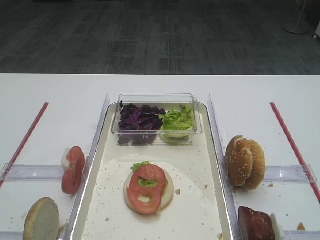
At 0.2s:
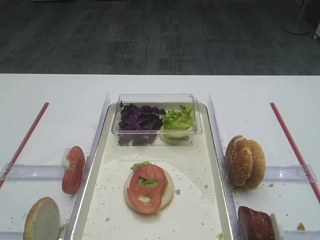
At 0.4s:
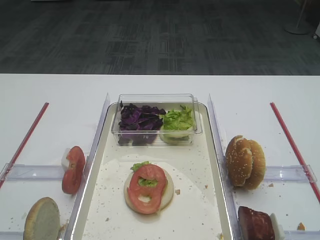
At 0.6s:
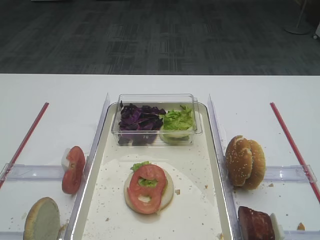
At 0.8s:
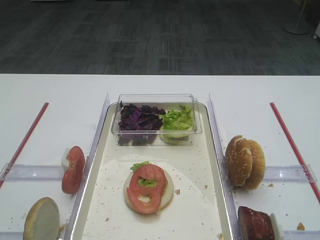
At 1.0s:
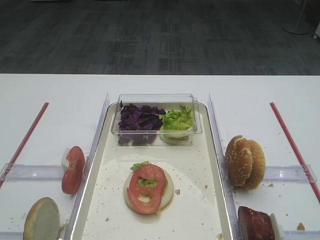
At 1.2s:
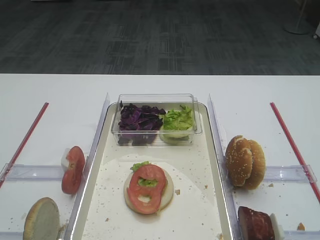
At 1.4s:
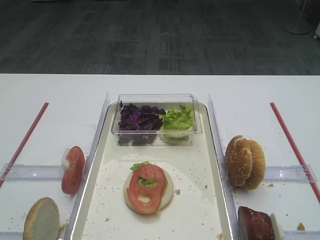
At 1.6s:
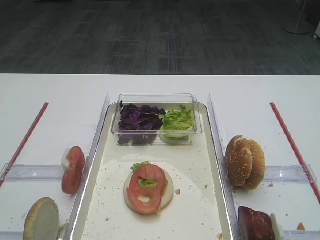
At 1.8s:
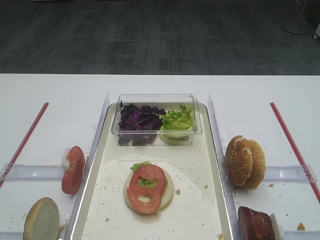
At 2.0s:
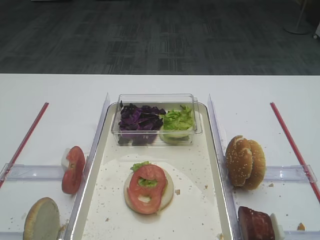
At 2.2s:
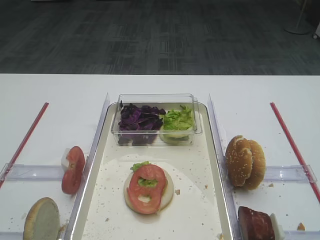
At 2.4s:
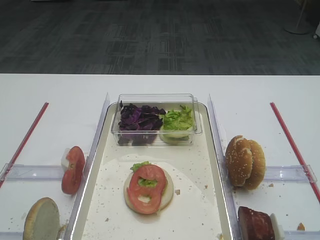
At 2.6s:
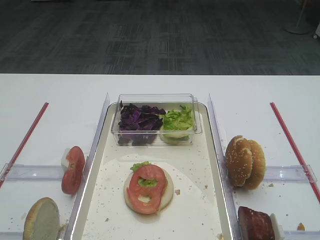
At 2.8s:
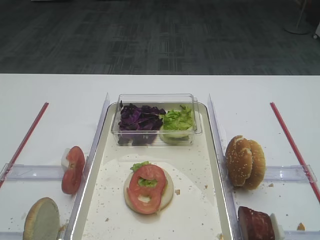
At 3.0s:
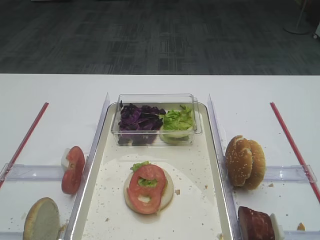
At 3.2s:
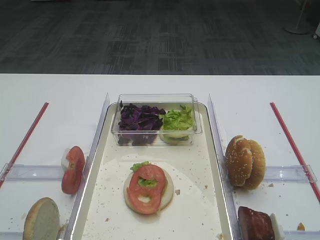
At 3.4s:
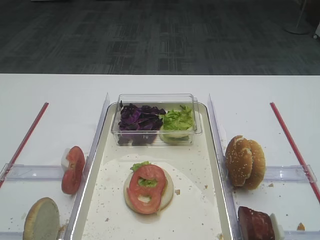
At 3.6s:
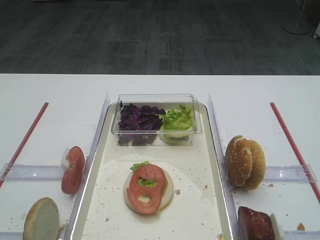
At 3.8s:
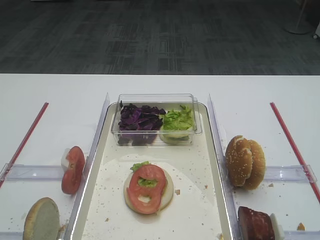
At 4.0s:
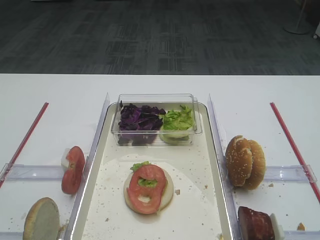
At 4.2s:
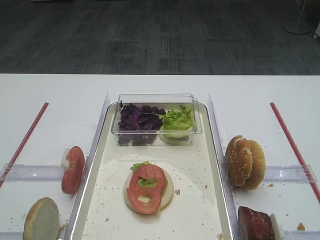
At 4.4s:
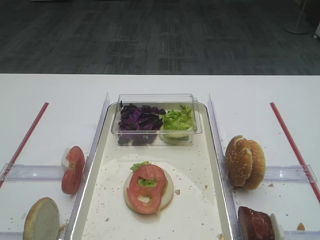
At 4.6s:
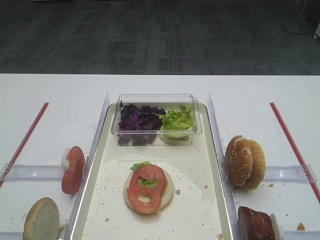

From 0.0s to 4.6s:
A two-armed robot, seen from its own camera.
From 1.6s to 4.6s: Both grippers stay put.

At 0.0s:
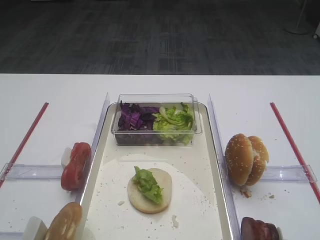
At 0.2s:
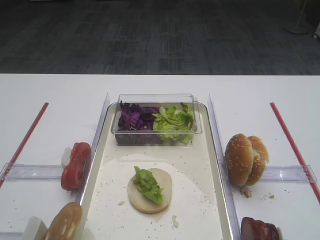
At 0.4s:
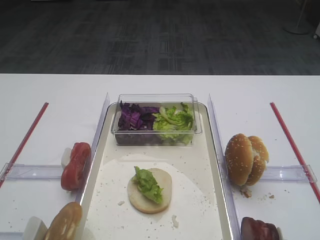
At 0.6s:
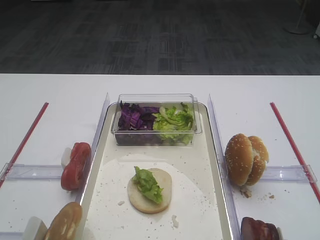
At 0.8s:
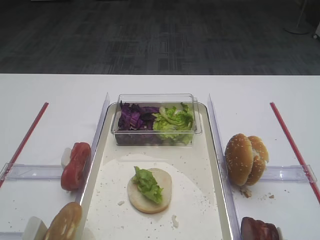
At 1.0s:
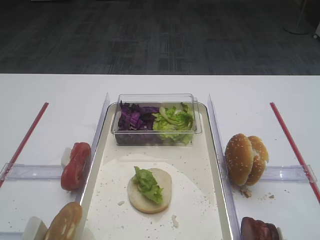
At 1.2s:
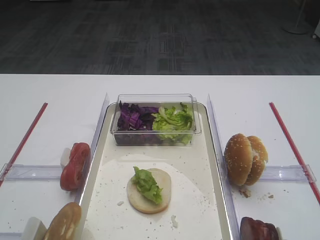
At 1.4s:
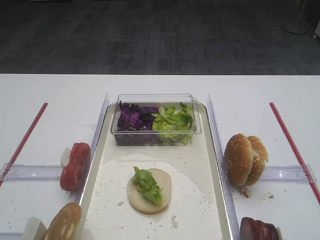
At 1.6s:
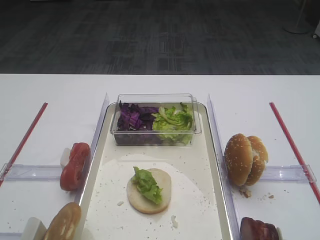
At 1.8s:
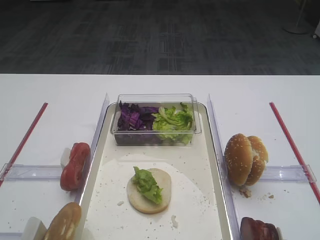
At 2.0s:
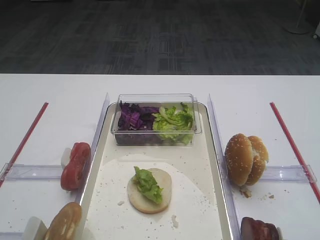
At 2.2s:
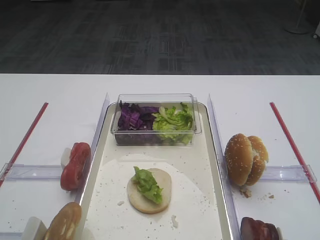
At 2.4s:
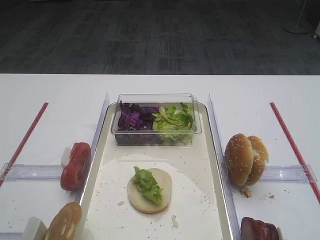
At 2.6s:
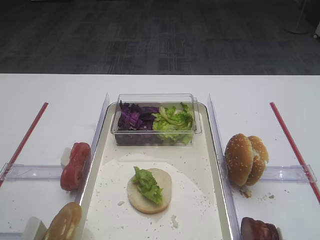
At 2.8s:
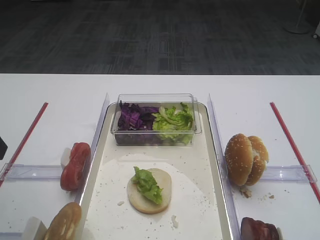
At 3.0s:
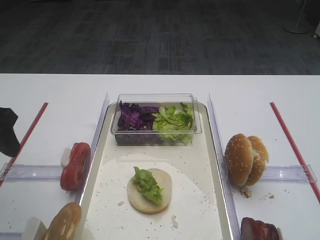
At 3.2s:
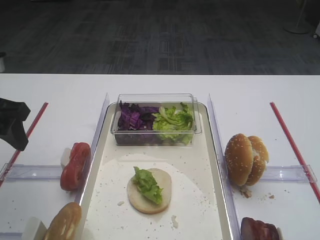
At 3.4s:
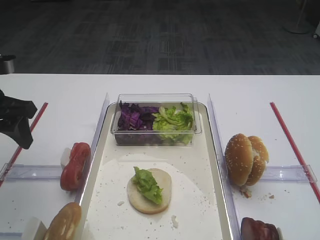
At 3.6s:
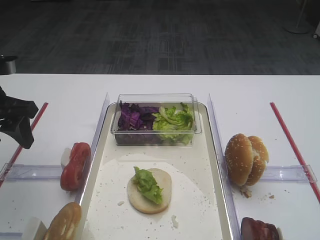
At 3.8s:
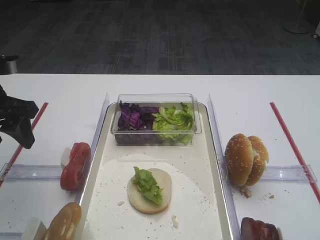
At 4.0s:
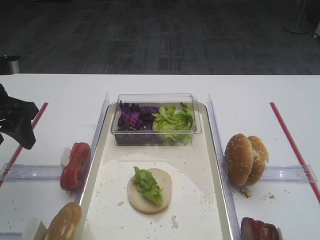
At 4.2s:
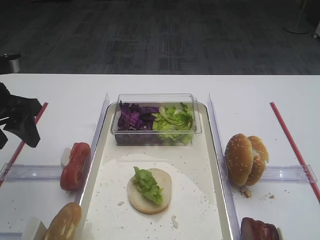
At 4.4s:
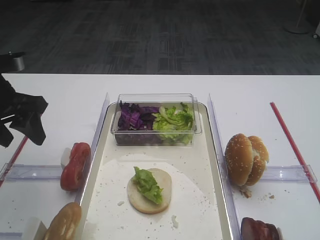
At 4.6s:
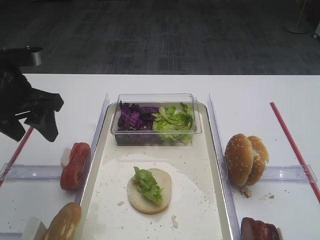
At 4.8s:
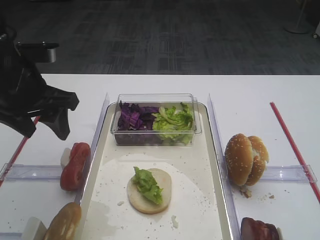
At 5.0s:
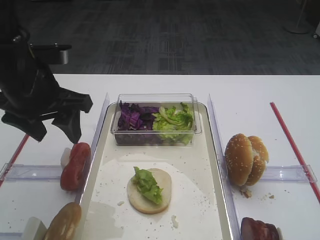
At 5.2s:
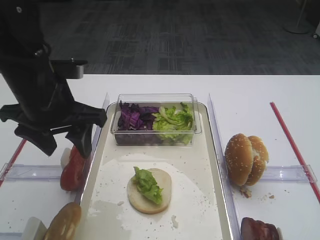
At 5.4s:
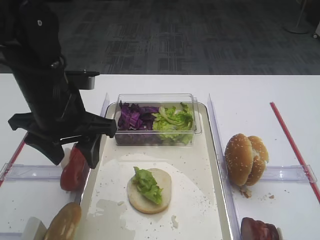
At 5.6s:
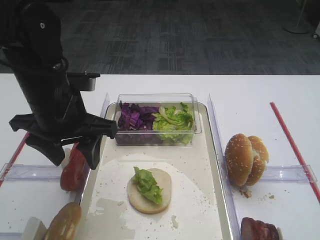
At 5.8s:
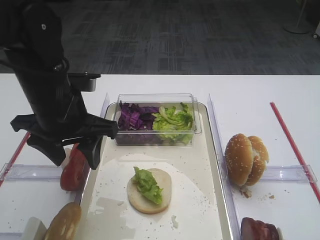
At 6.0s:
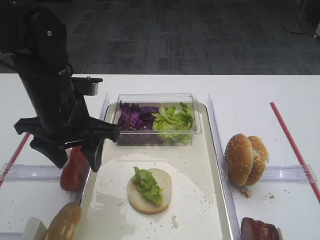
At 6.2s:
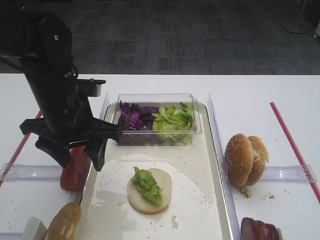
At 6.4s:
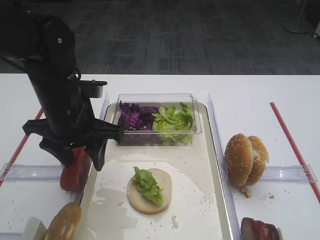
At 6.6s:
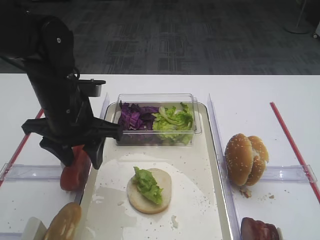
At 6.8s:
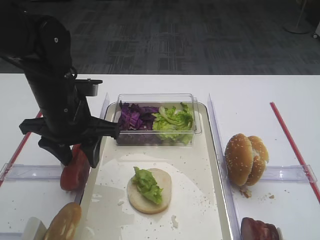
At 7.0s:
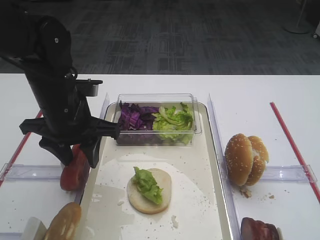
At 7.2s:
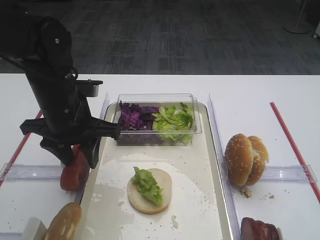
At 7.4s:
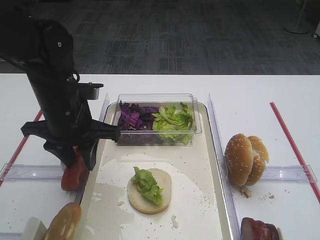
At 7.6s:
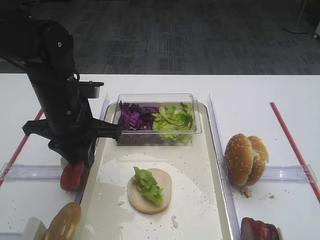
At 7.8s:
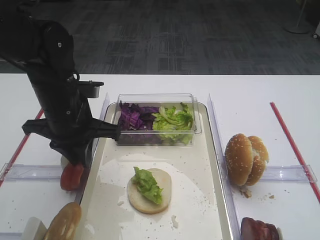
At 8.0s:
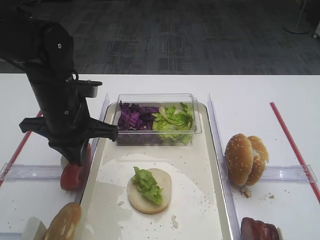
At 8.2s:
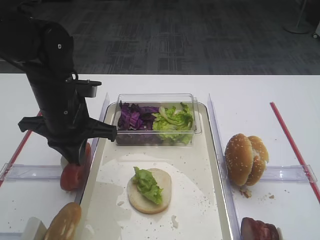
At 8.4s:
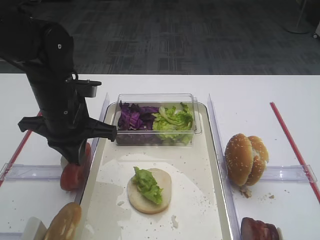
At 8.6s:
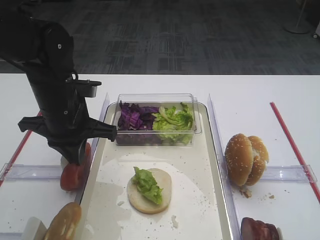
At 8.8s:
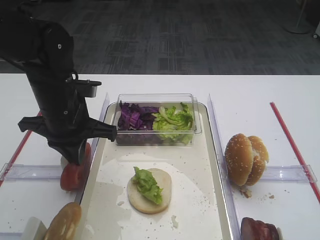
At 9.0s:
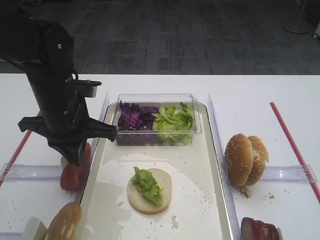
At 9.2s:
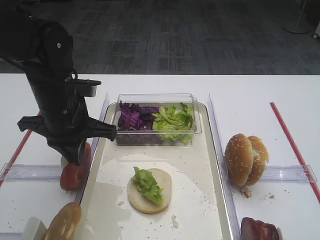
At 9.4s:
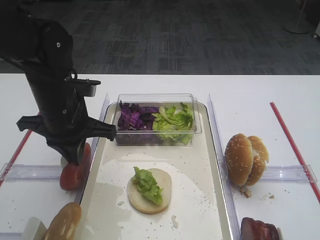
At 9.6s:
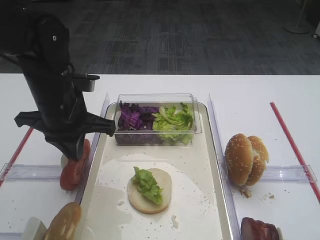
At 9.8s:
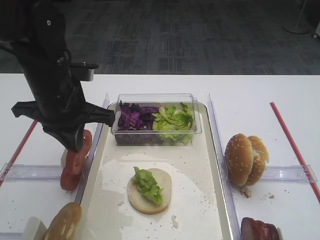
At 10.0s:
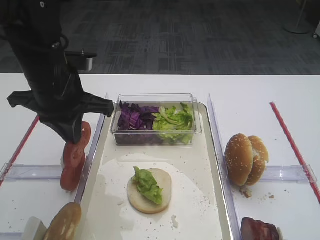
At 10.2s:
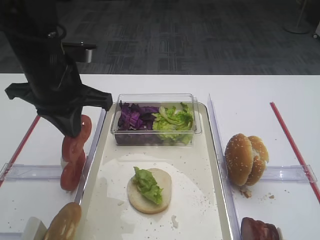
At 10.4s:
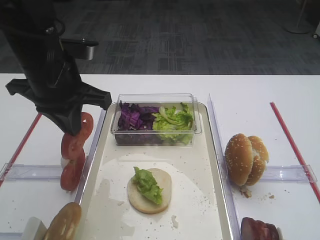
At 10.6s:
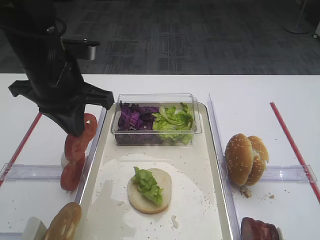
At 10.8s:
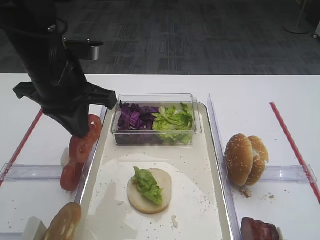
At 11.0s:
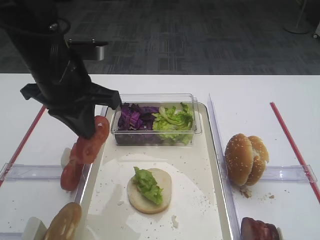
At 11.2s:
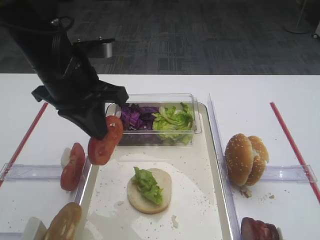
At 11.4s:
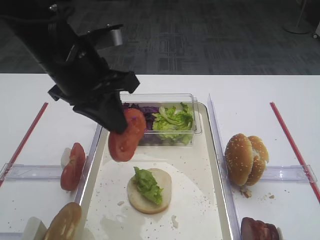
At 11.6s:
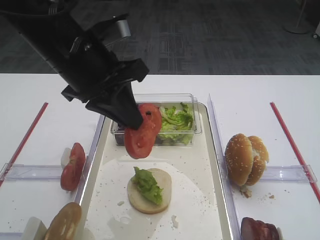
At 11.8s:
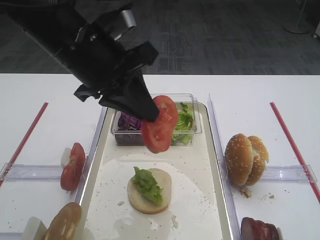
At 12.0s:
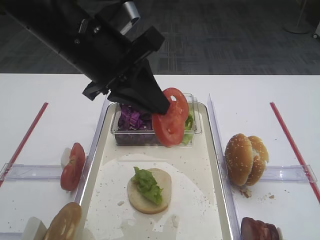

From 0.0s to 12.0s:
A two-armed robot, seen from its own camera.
Step, from 0.0s to 9.6s: Pick up the tomato slice with the left gripper.
From 1.6s to 3.0s: The left gripper heads forward, covering roughly 25 cm.
From 3.0s to 4.4s: The left gripper goes roughly 5 cm forward.
From 4.4s to 6.0s: The left gripper goes roughly 10 cm to the right.
From 6.0s to 7.6s: The left gripper closes up.
From 7.6s to 9.0s: Neither gripper changes place.
From 9.0s to 10.4s: The left gripper travels upward by about 5 cm.
From 10.4s to 12.0s: The left gripper travels to the right by some 5 cm.

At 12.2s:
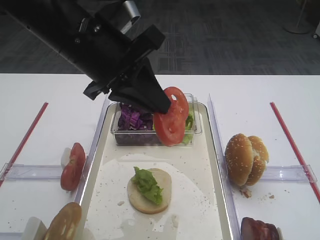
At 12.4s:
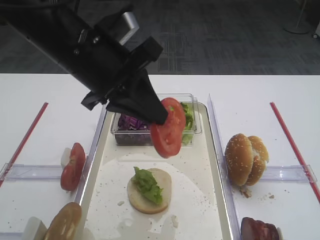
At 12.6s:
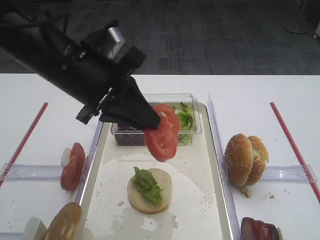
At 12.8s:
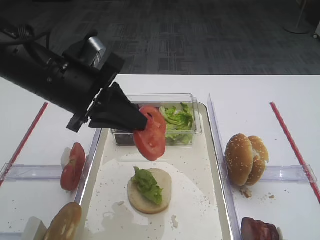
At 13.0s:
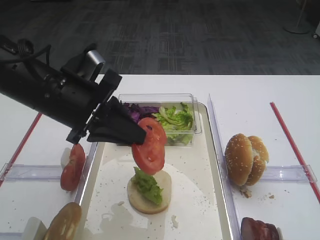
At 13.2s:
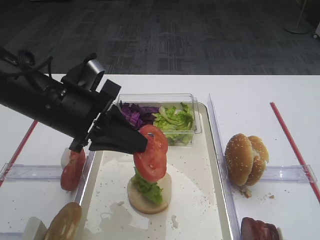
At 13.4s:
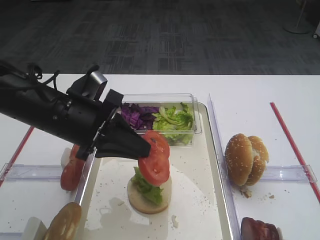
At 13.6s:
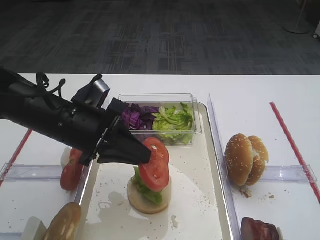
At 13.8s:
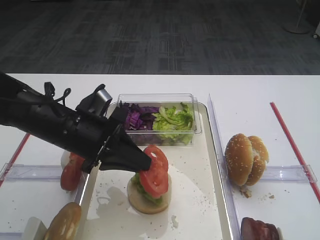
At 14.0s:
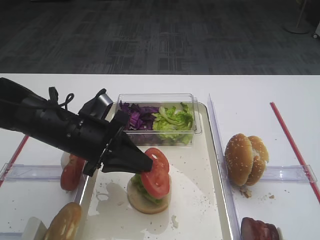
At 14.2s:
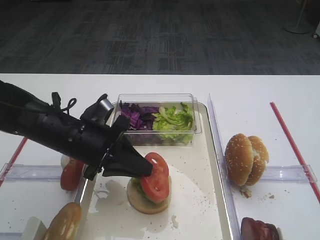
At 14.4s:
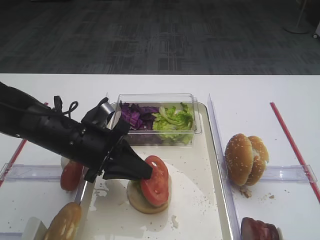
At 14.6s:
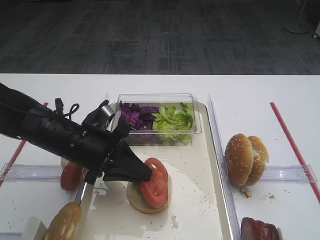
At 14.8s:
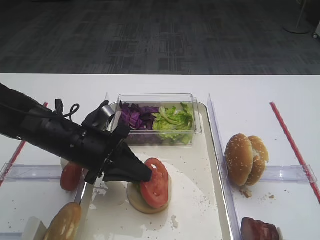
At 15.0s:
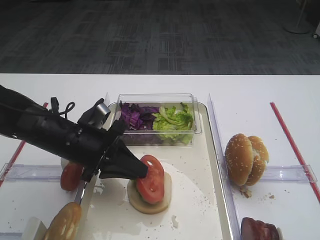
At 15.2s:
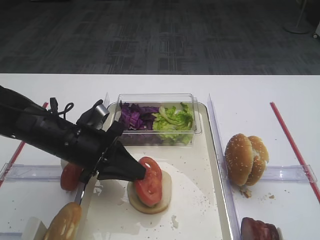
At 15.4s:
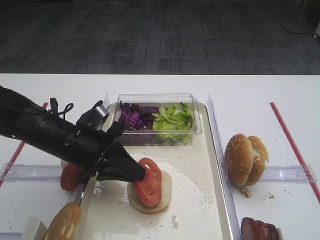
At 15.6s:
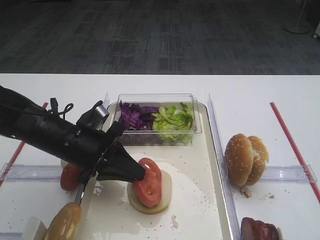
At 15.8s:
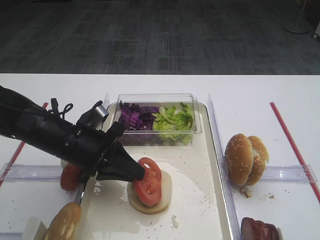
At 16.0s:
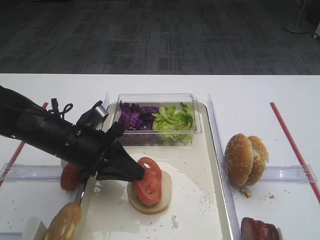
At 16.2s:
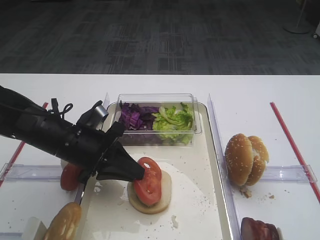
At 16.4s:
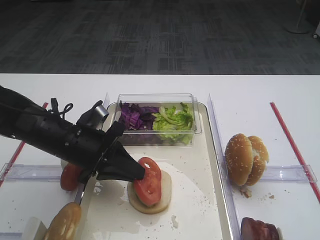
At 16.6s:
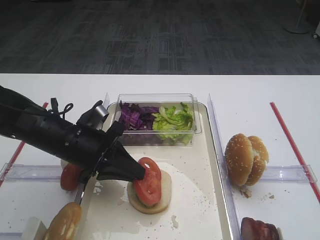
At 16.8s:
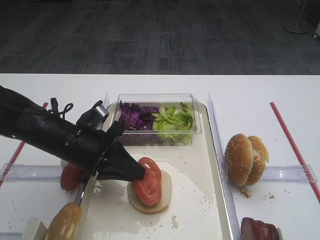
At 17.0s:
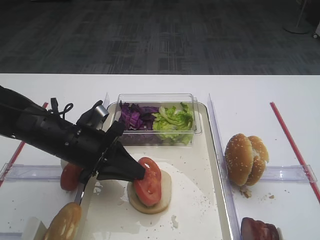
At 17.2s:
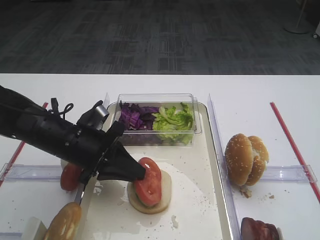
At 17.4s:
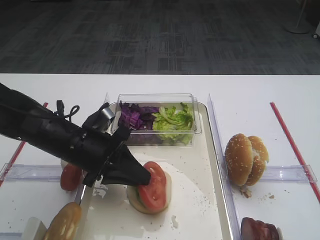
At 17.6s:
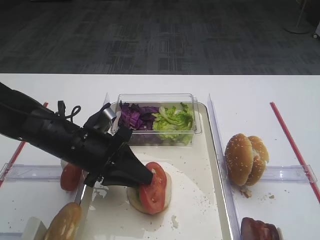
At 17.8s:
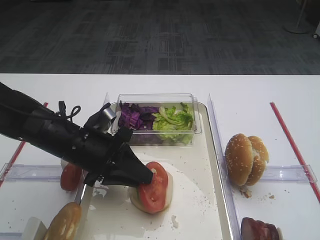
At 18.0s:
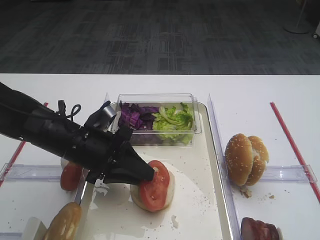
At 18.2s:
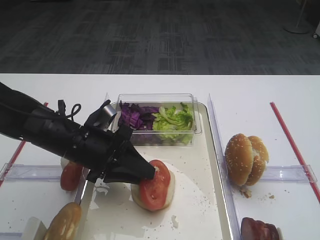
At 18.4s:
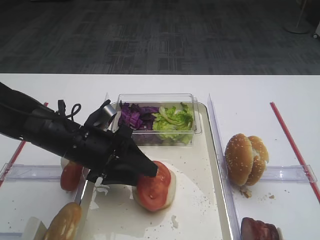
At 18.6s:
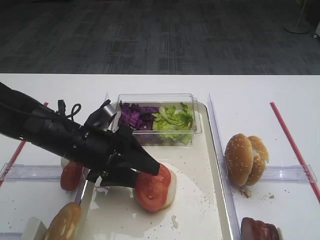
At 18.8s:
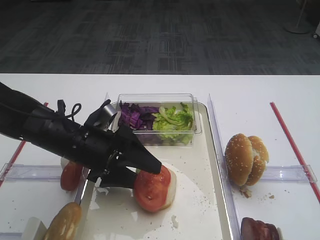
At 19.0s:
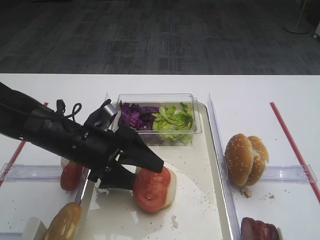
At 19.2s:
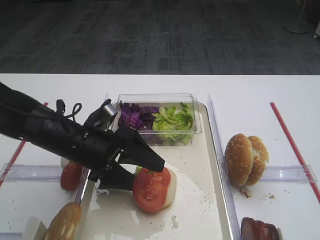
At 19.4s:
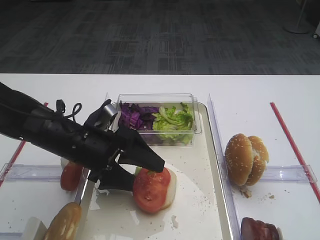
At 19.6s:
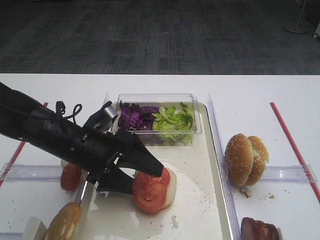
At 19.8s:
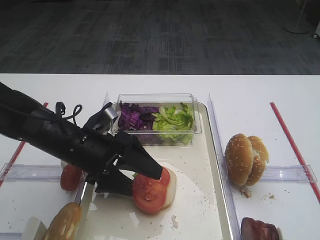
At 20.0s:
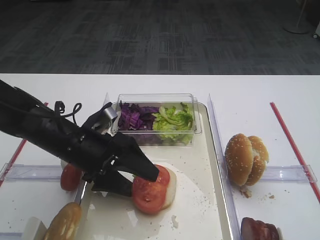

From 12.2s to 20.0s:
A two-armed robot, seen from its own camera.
From 12.2s to 13.8s: The left gripper shifts approximately 15 cm downward.
From 13.8s to 15.4s: The grippers make only small movements.
From 15.4s to 16.8s: Both grippers stay about where they are.
From 16.8s to 18.4s: The left gripper opens up.
From 18.4s to 20.0s: The left gripper opens up.
